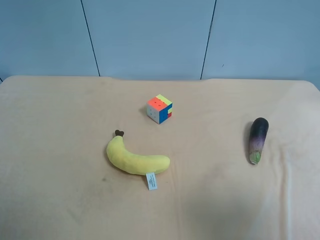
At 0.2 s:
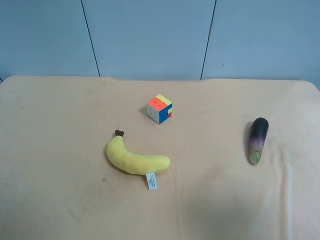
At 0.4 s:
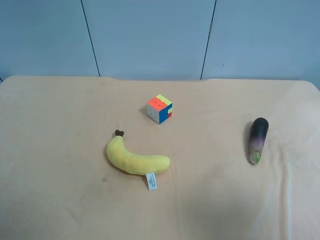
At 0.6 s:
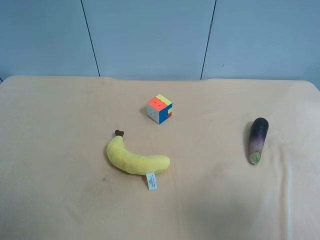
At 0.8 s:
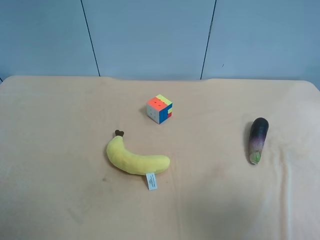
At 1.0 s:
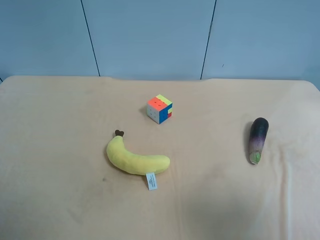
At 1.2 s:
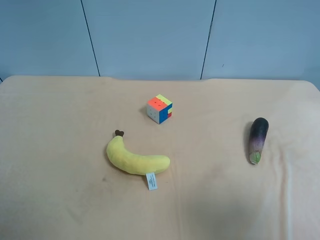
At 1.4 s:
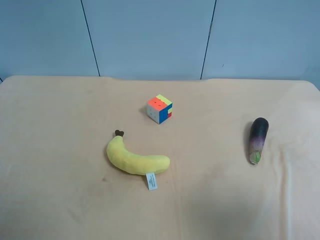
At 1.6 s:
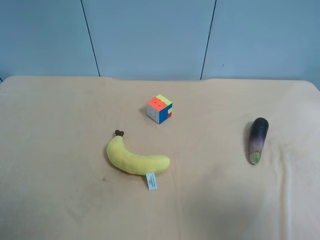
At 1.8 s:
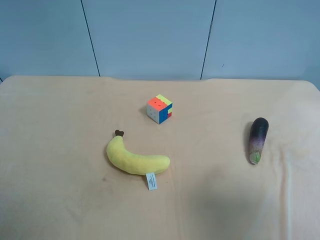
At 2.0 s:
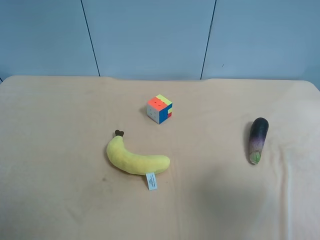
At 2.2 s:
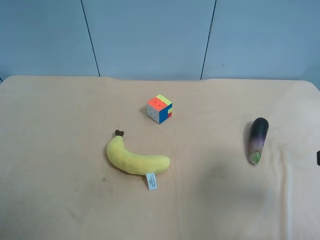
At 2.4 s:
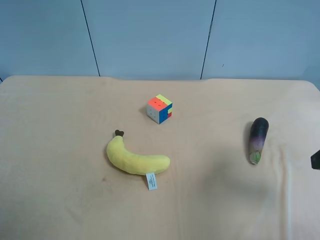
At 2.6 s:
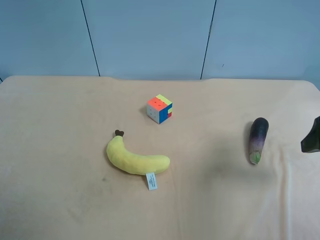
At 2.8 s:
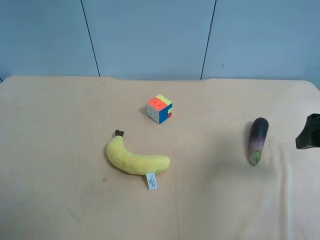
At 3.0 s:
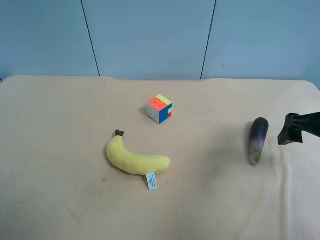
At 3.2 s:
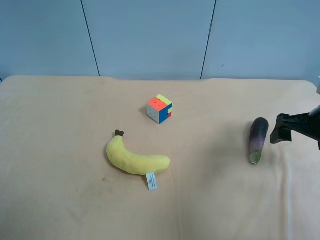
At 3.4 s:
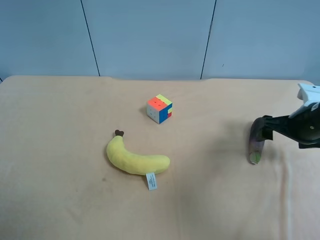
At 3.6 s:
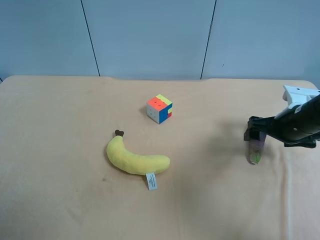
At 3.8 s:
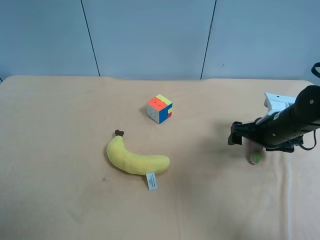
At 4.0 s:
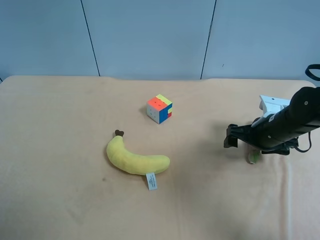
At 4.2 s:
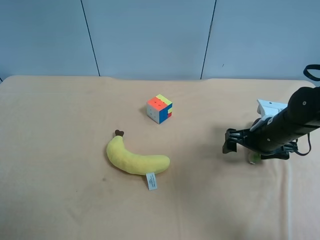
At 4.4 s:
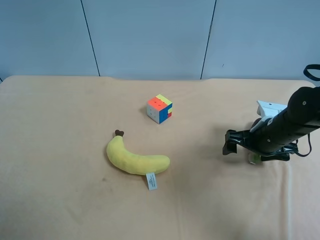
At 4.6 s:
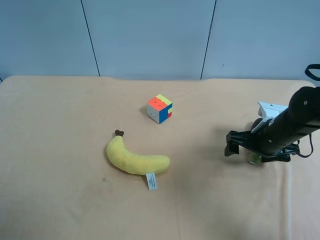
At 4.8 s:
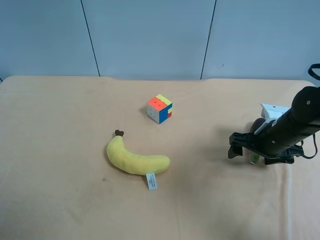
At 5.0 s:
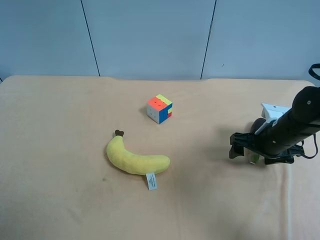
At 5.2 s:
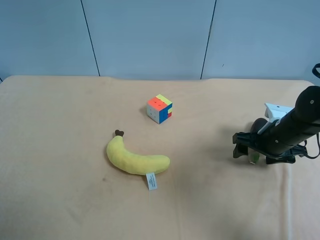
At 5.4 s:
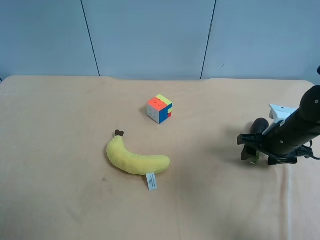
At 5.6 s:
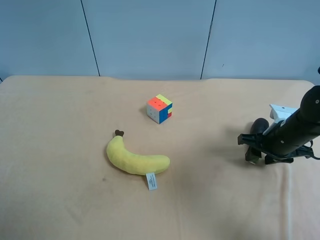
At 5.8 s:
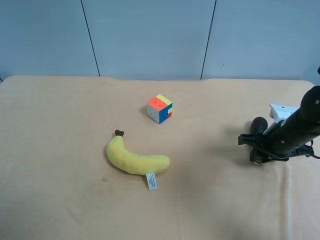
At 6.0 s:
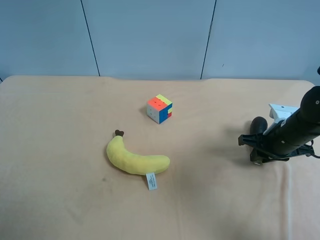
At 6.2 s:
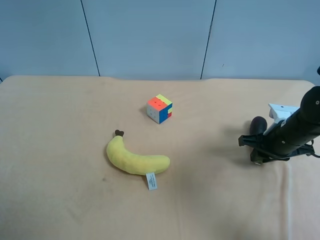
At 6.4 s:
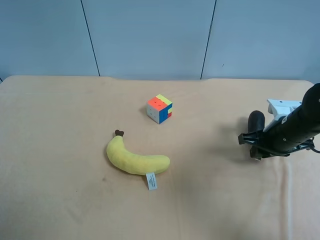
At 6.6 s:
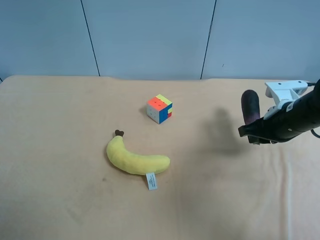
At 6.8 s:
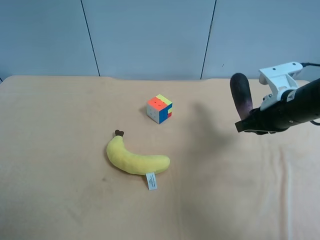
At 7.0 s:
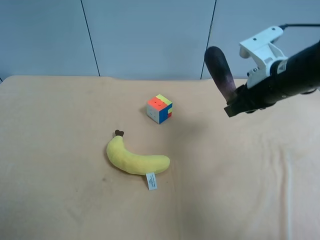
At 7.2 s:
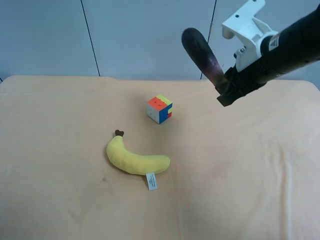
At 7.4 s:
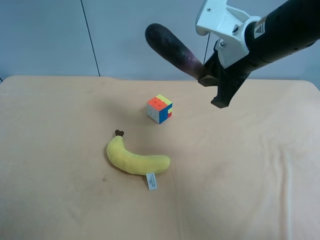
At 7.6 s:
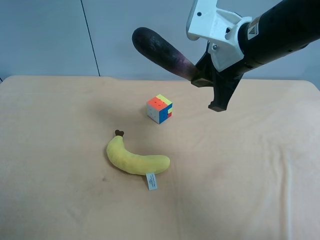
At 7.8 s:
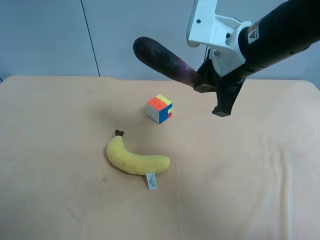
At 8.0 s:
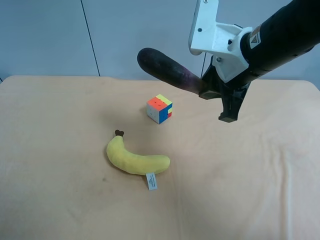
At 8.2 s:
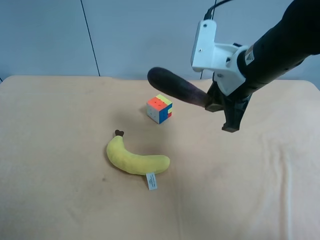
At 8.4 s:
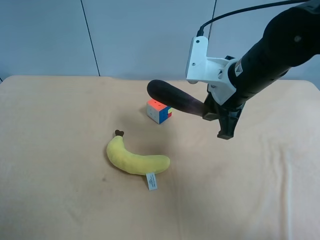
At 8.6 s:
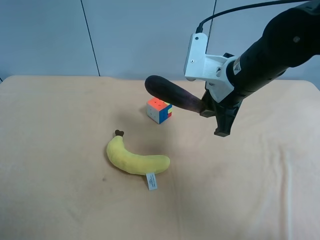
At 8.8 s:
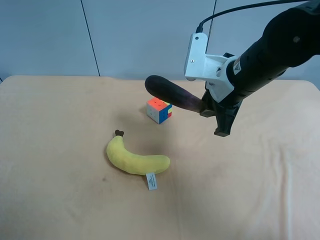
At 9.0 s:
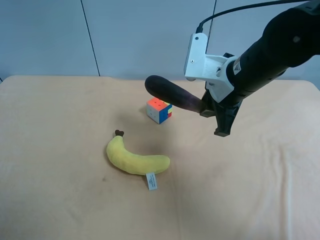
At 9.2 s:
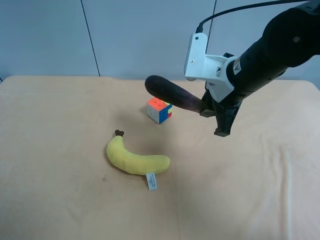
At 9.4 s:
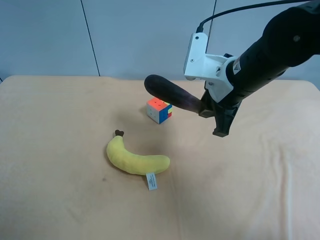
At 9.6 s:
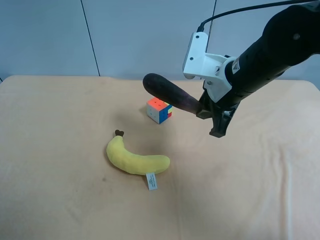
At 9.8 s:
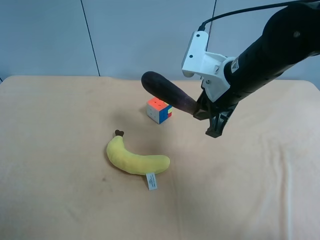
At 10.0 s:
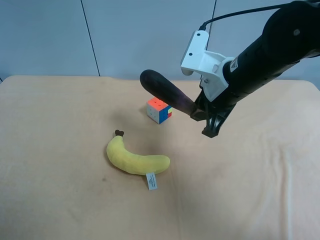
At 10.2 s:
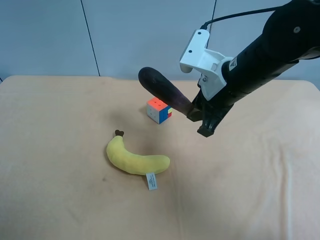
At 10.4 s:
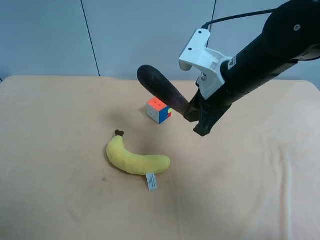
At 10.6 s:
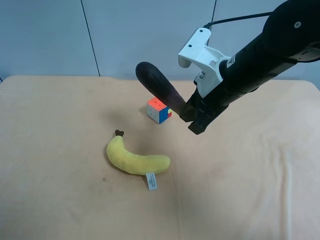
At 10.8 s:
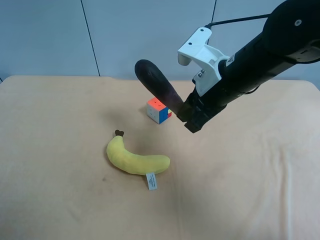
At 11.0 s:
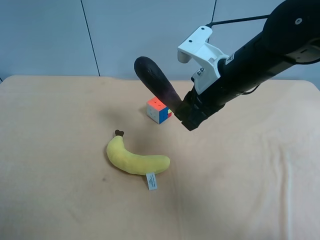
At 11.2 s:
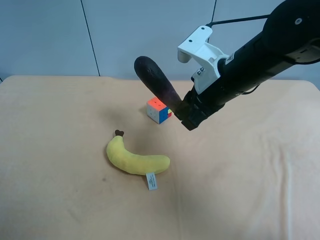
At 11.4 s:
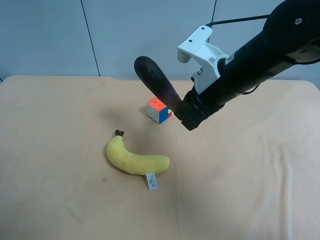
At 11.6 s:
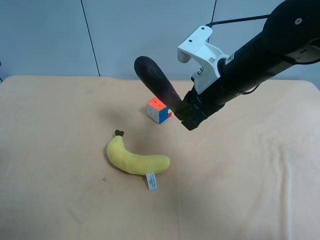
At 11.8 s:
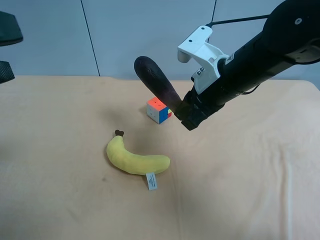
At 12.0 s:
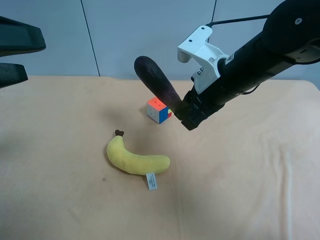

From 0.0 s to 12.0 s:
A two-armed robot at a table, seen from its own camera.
Task of the whole recording: use the right gripper to pick up the item and transfer it from the right gripper to the left gripper.
From 0.0 s to 1.6 s: Neither gripper changes place.
From 1.6 s to 3.0 s: The right gripper goes approximately 25 cm forward and downward.
From 3.0 s to 4.4 s: The right gripper heads downward, to the left and forward, covering about 15 cm.
From 4.4 s to 6.0 s: The right gripper closes up.
From 6.0 s to 7.6 s: The right gripper heads upward and to the left, covering some 25 cm.
From 7.6 s to 9.0 s: The right gripper shifts roughly 5 cm downward.
From 10.4 s to 12.0 s: The left gripper shifts some 15 cm forward.

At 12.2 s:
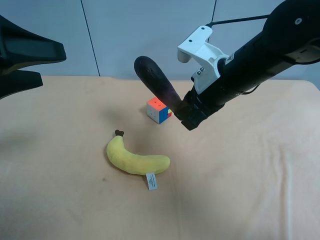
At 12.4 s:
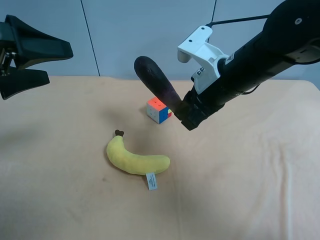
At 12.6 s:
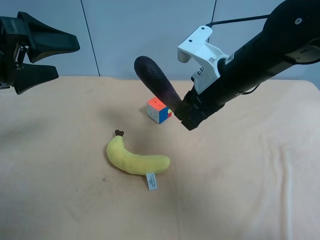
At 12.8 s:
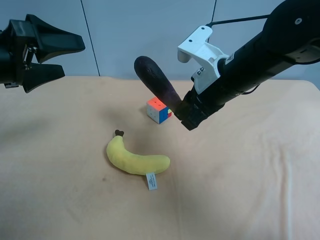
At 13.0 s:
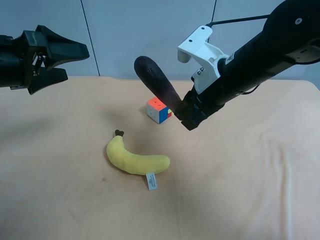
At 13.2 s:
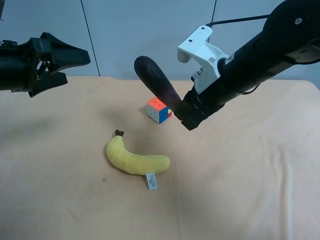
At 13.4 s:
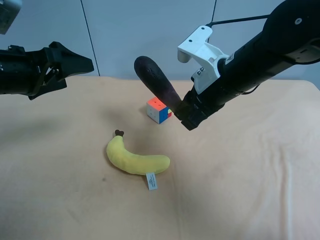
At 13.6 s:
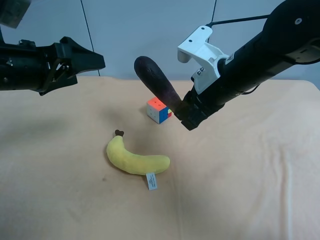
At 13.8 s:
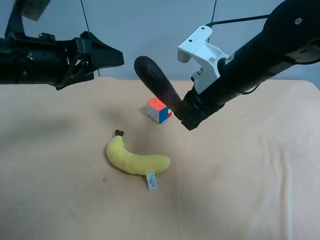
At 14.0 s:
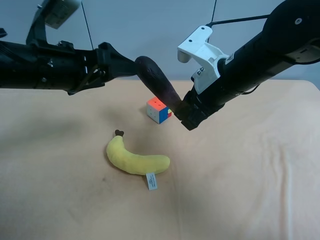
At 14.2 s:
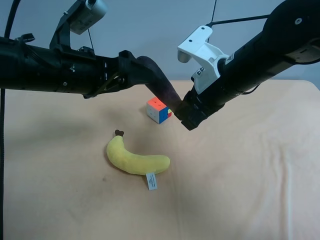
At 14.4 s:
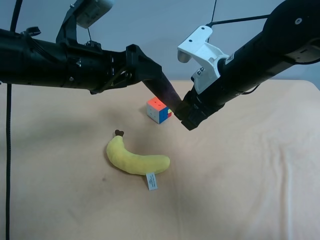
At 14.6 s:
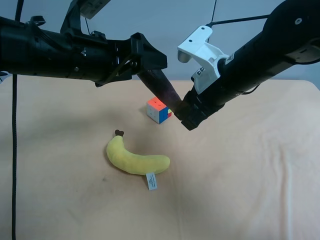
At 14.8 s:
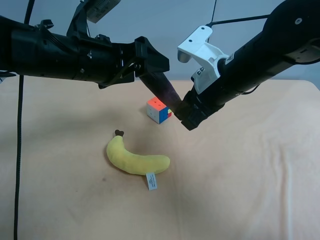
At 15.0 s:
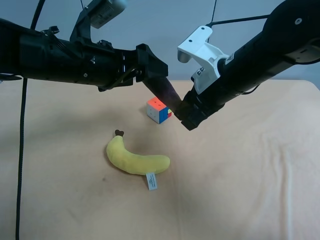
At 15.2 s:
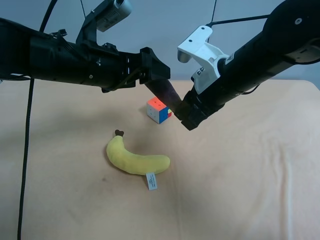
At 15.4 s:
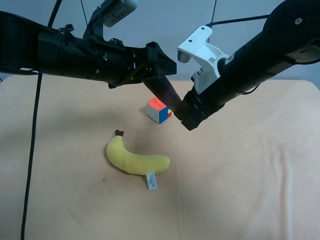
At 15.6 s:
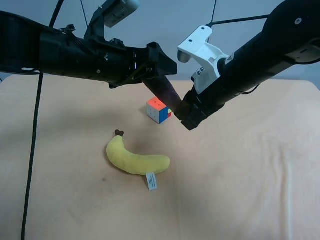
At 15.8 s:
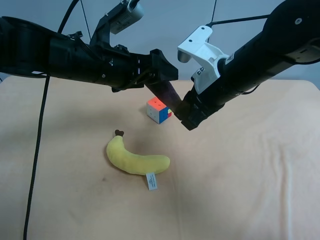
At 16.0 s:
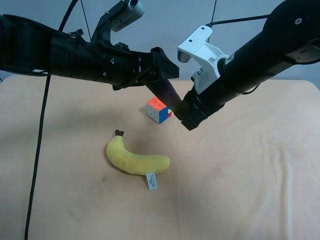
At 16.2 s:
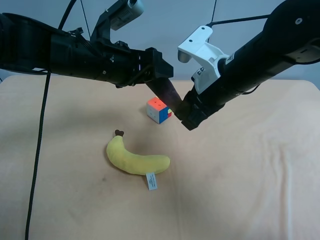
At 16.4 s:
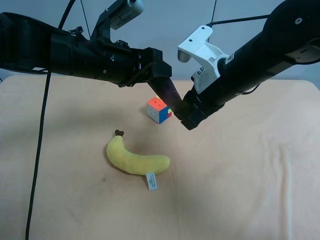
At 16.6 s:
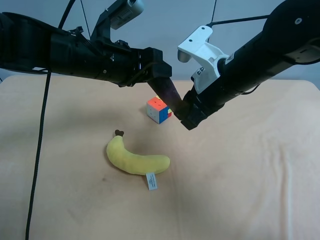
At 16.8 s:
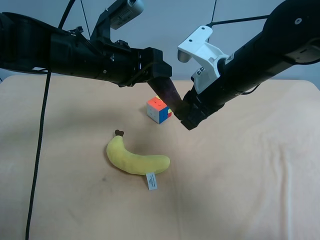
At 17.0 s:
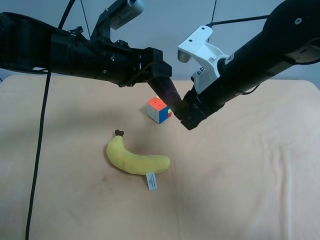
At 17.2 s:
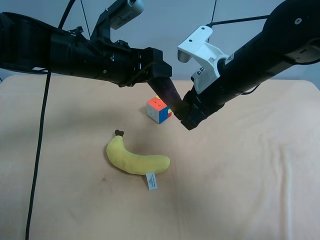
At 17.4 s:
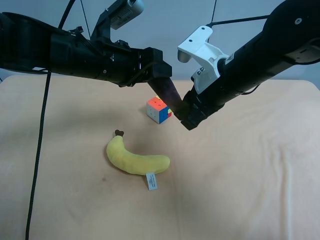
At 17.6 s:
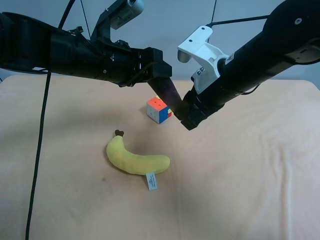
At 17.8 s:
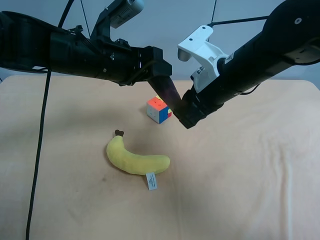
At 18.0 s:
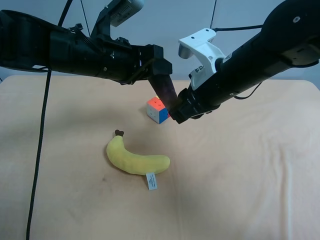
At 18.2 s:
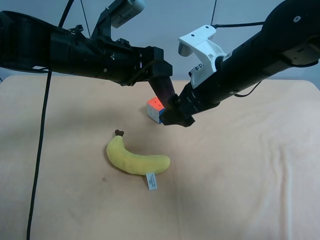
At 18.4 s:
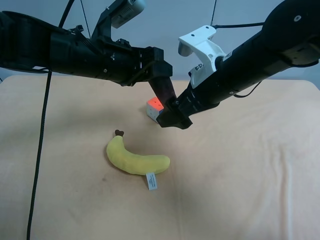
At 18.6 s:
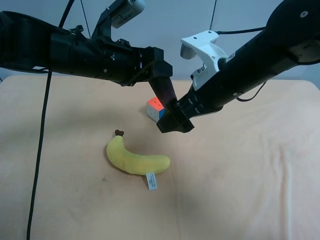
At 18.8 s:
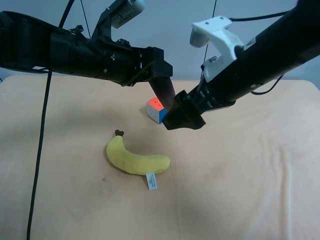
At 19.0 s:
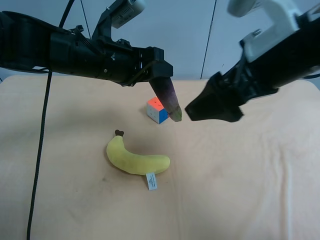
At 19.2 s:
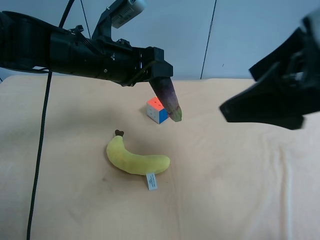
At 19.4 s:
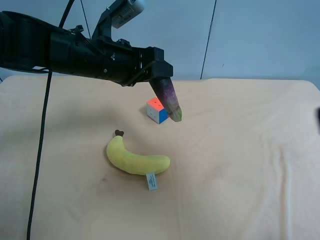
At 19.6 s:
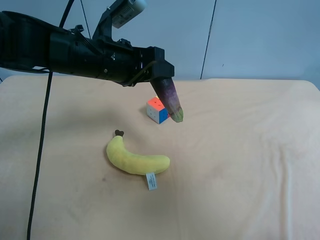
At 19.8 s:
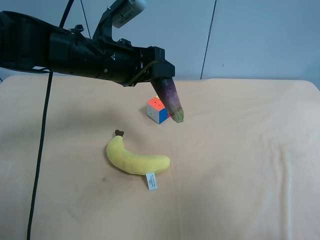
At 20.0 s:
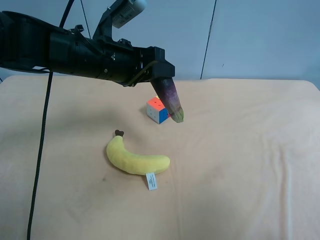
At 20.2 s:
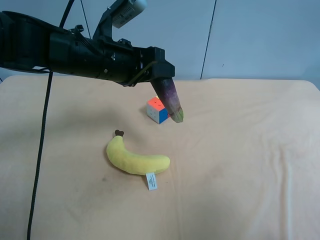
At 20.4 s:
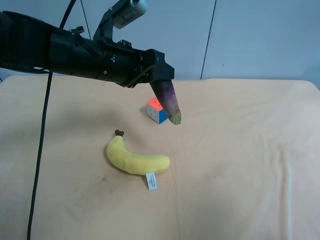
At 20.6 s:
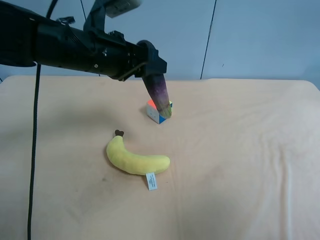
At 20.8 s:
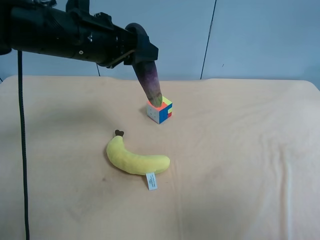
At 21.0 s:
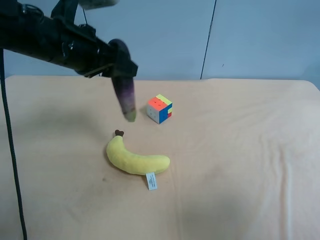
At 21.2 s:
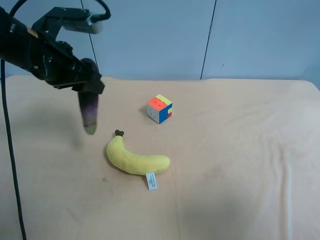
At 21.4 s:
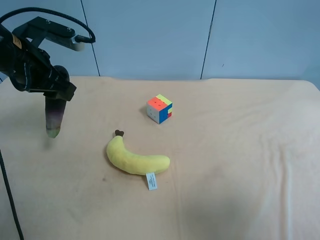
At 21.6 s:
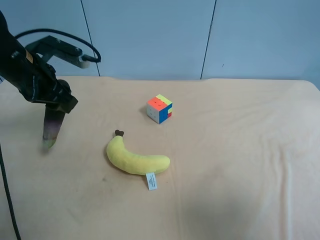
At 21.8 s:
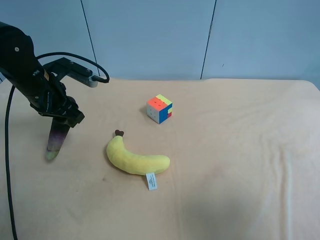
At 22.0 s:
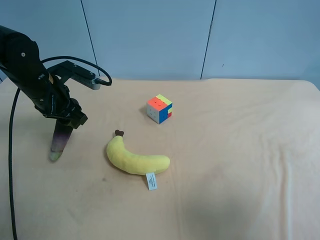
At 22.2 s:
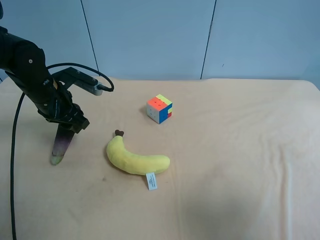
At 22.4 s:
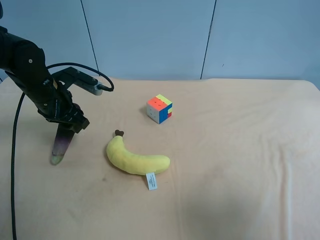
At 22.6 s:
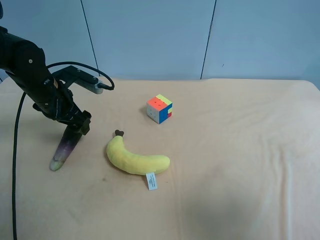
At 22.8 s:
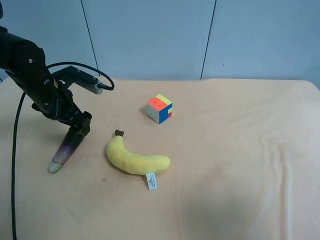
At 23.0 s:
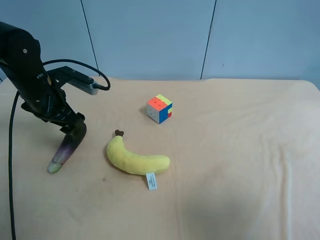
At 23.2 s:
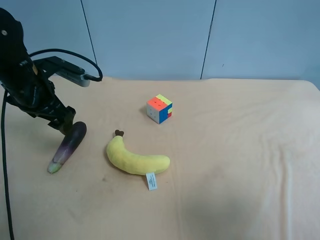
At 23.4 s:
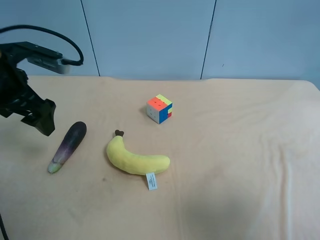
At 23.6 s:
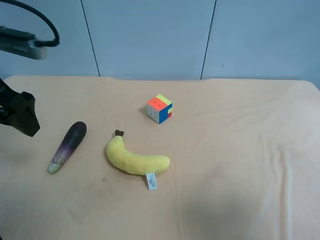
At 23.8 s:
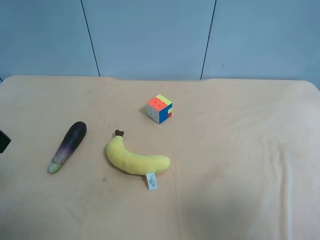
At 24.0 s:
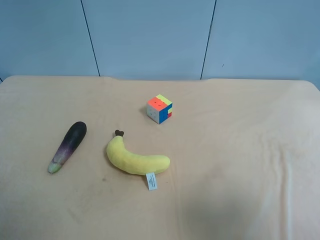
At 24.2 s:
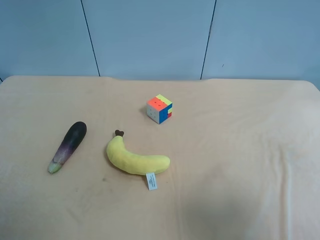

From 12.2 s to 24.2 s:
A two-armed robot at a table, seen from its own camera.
Task of the whole recording: use the right gripper to pick up the item and transfer it from the right gripper to the left gripper.
From 12.2 s to 13.8 s: The left gripper moves to the right and forward, roughly 10 cm.
From 13.8 s to 15.2 s: The left gripper heads to the right, covering roughly 5 cm.
From 15.2 s to 16.6 s: The left gripper closes its fingers.
From 16.6 s to 18.2 s: The right gripper opens up.
From 18.2 s to 19.8 s: The right gripper moves backward and to the right, about 30 cm.
From 19.8 s to 21.2 s: The left gripper travels to the left by approximately 10 cm.
From 21.2 s to 22.6 s: The left gripper heads downward, covering roughly 10 cm, and opens its fingers.
From 22.6 s to 24.2 s: The left gripper shifts about 35 cm backward and upward.
